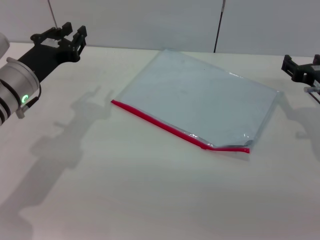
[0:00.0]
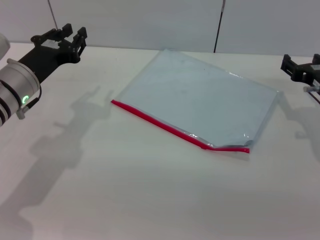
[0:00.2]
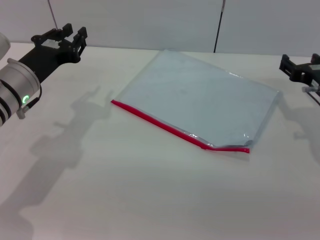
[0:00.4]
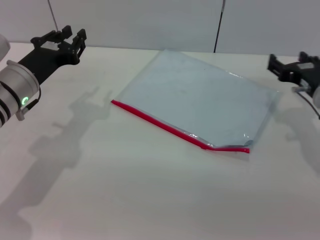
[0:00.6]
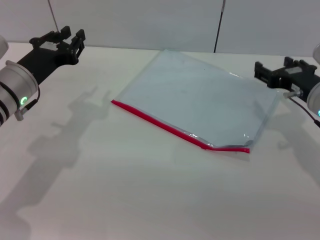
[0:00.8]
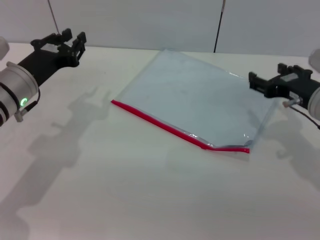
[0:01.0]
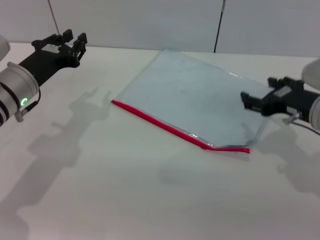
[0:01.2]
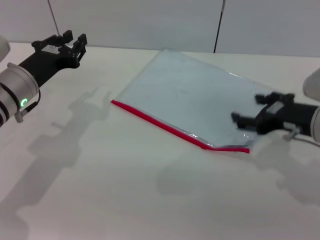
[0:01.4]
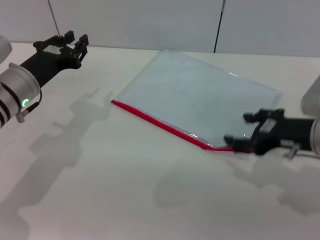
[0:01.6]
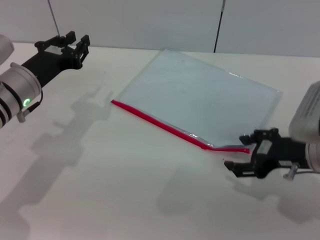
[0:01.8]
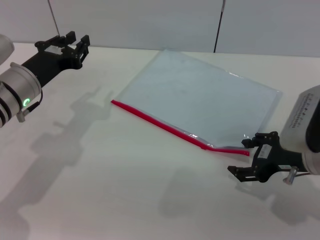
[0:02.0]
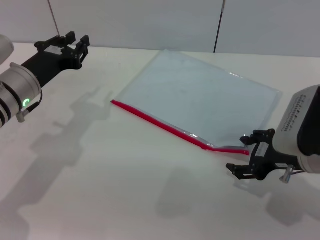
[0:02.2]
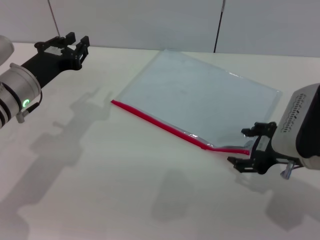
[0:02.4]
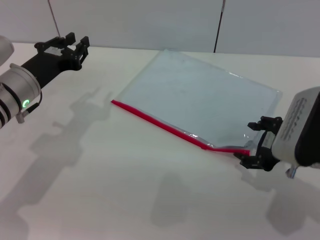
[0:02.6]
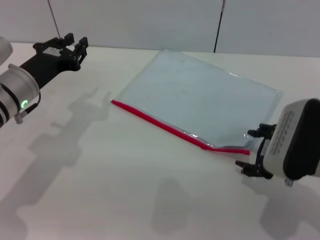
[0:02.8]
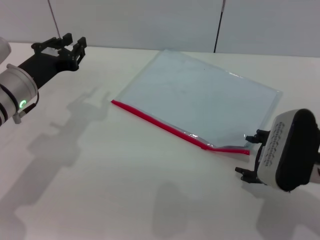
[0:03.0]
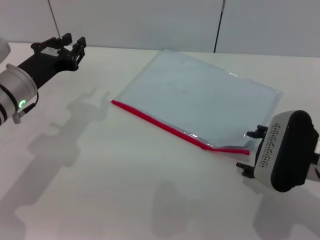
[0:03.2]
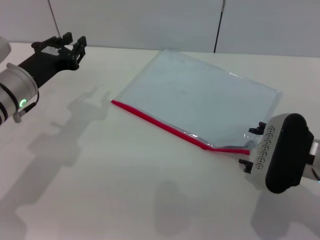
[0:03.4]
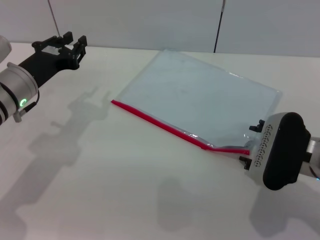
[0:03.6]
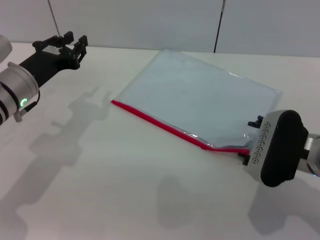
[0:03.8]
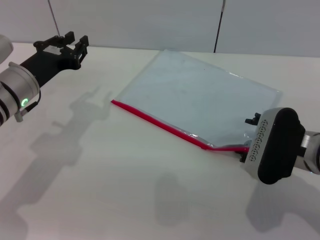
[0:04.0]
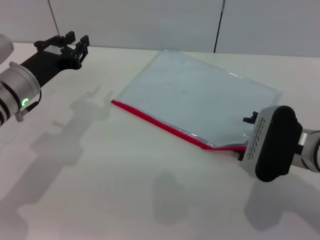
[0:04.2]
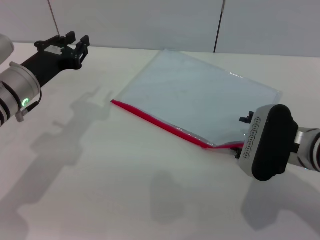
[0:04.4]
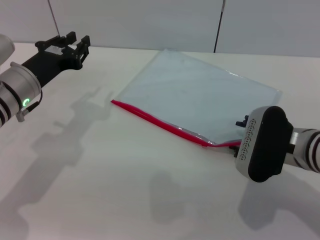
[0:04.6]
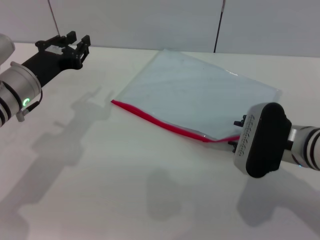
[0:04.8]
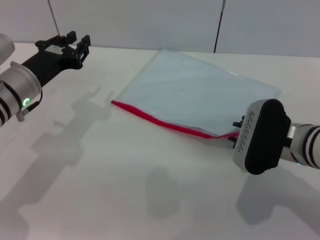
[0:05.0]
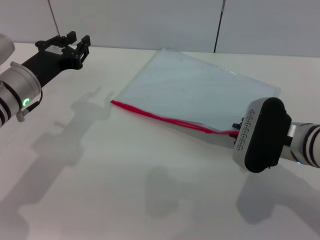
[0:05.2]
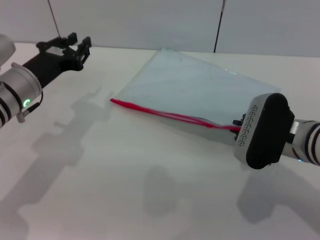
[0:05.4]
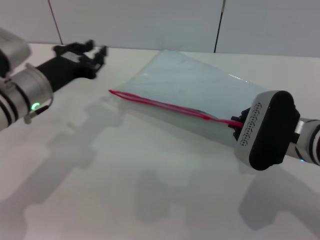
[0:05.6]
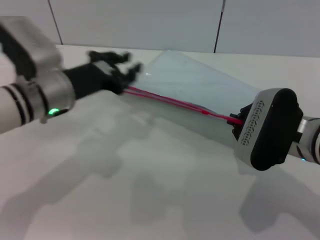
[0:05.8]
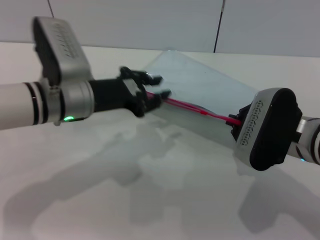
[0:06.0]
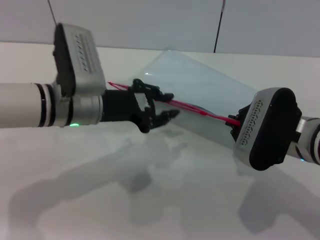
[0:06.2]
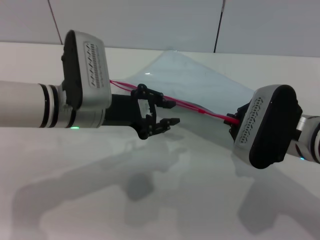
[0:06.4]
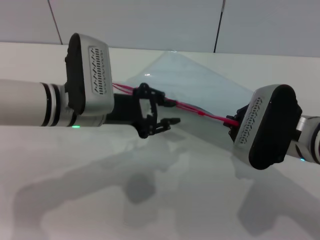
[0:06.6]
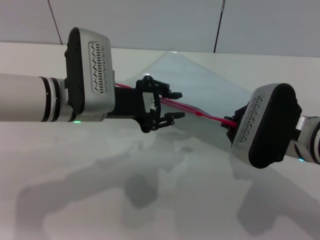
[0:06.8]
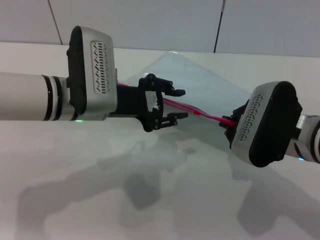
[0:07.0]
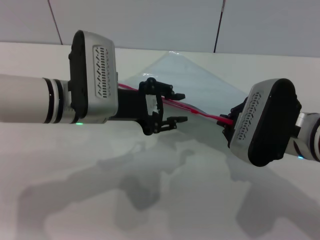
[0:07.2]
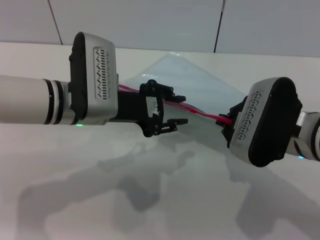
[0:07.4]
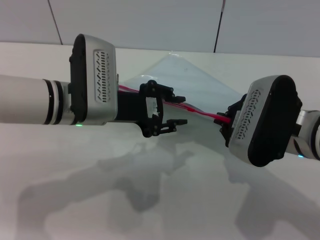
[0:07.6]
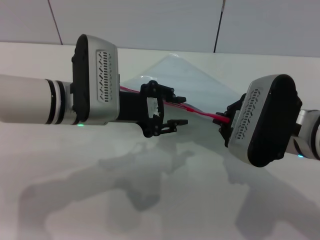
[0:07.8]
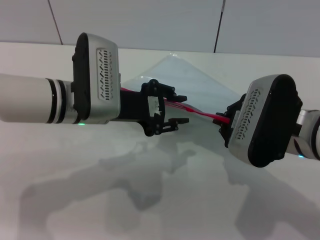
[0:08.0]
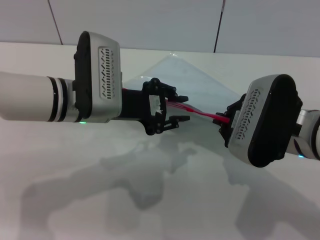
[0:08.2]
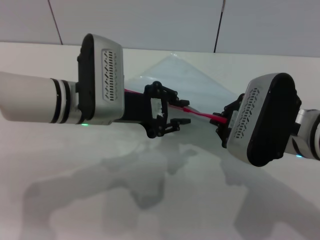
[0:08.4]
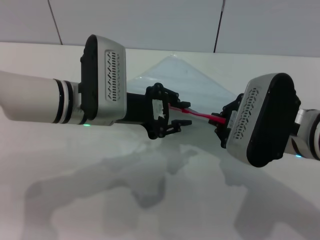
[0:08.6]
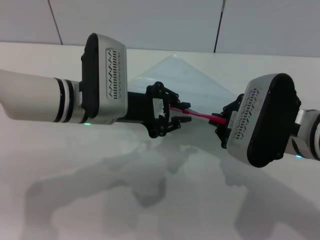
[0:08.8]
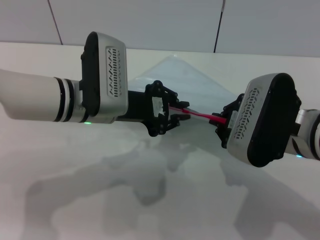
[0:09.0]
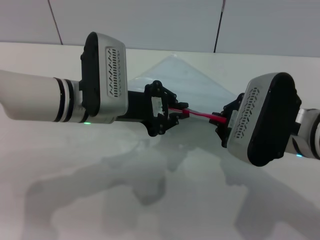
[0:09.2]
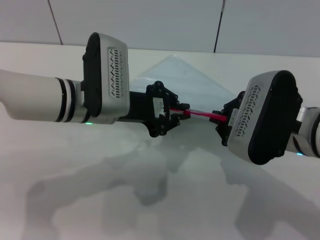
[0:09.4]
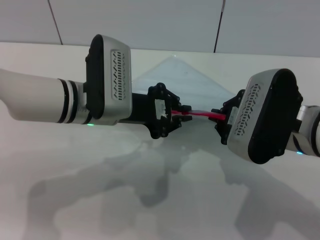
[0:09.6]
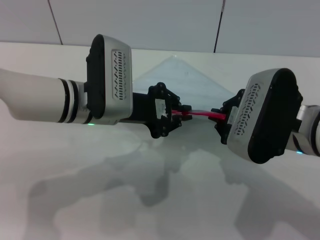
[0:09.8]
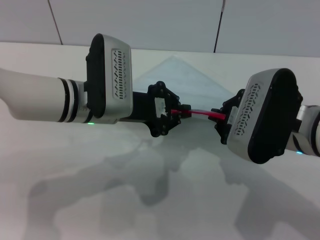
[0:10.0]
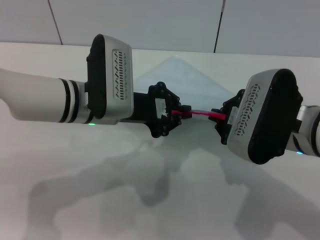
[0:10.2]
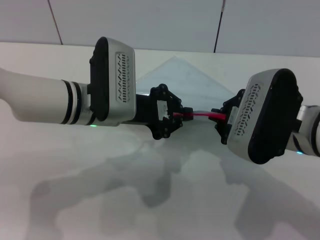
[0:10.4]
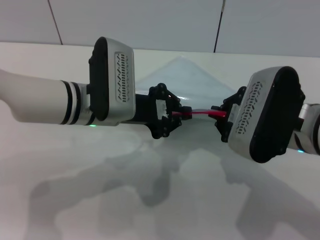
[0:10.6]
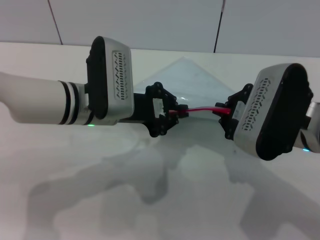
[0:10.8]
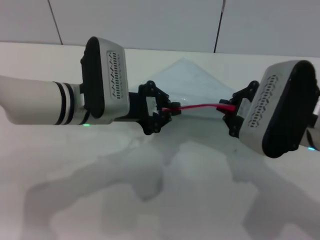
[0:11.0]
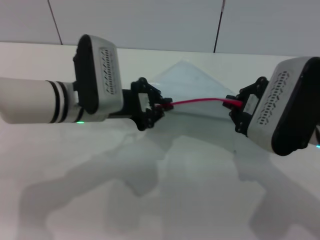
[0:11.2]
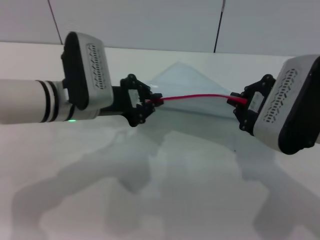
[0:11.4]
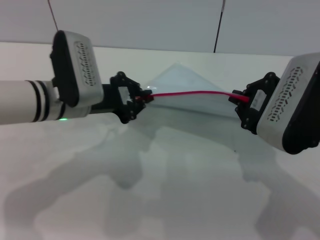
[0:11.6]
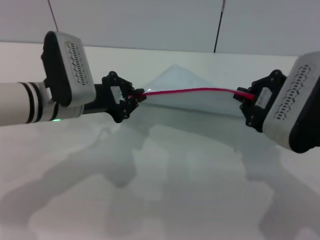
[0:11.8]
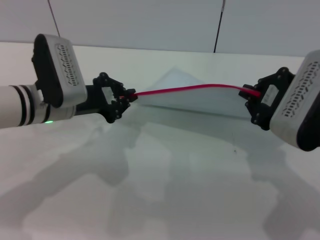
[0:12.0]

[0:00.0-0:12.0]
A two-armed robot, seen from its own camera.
Step, 0:00.0 to 0:06.0: Pick up the transparent plastic bag with the right gripper.
0:00.0 to 0:01.6: The right gripper goes roughly 5 cm backward.
0:03.0 to 0:04.4: There are only small adjustments of the grippers.
0:04.4 to 0:06.0: The right gripper closes up, while the left gripper goes some 5 cm to the right.
0:07.6 to 0:09.0: The left gripper closes.
0:09.0 to 0:10.4: The left gripper closes.
0:10.4 to 0:12.0: The left gripper heads to the left, covering some 5 cm.

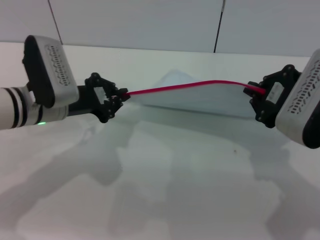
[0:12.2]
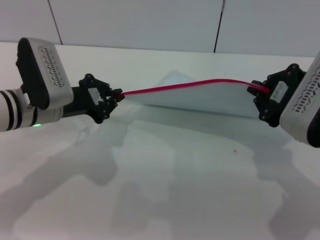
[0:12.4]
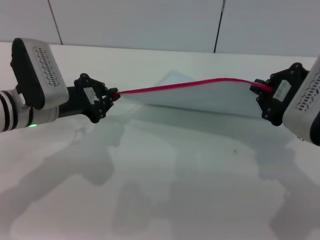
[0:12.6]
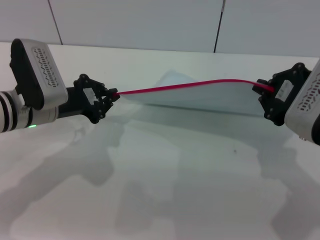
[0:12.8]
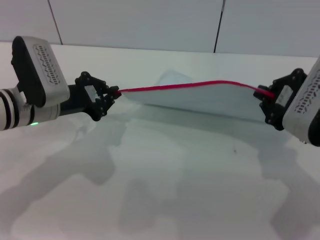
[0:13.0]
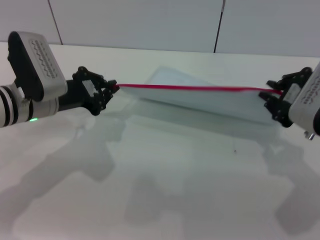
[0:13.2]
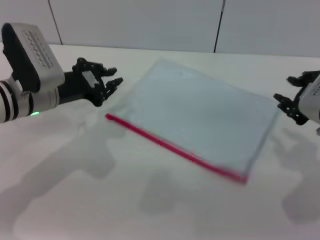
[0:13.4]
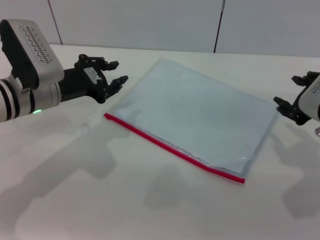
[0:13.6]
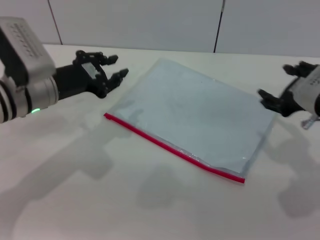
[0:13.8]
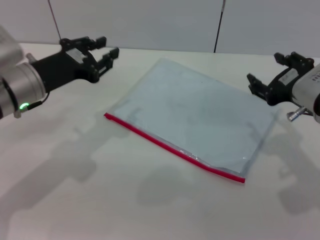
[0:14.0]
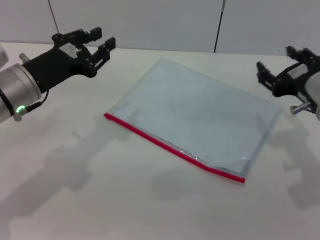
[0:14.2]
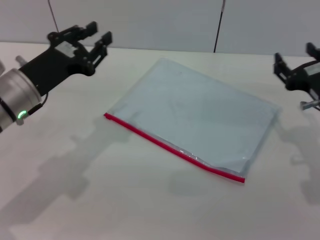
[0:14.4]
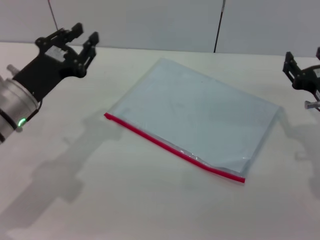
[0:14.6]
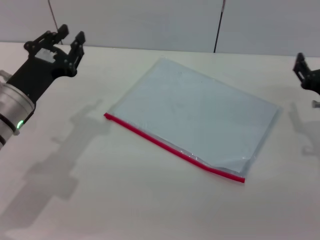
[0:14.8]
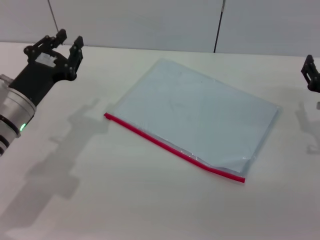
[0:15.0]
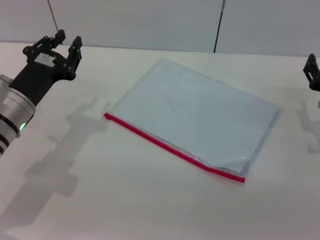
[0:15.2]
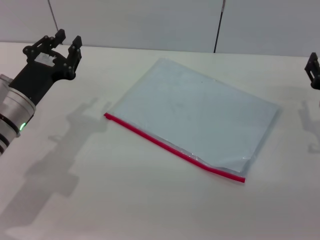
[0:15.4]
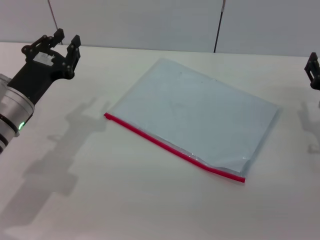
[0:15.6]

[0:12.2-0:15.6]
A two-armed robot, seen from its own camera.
Step, 0:13.4 to 0:14.0: Place the transparent plastic bag.
0:12.2 to 0:13.8: The right gripper opens up, while the left gripper opens its fingers.
0:13.8 to 0:15.6: The right gripper shifts about 10 cm downward. The left gripper shifts by about 5 cm.

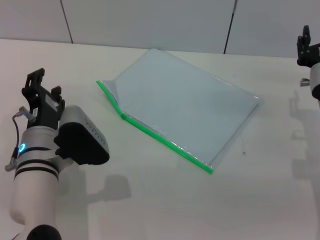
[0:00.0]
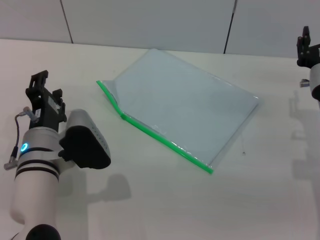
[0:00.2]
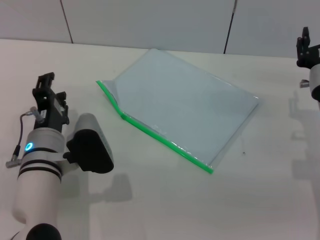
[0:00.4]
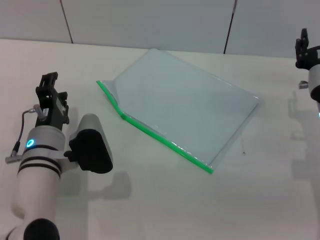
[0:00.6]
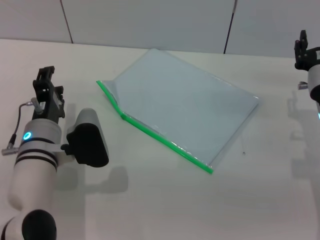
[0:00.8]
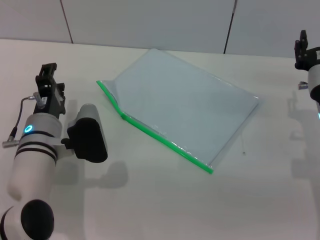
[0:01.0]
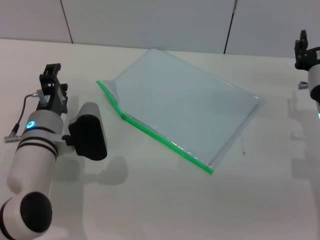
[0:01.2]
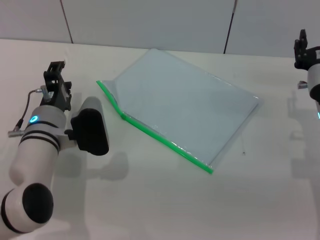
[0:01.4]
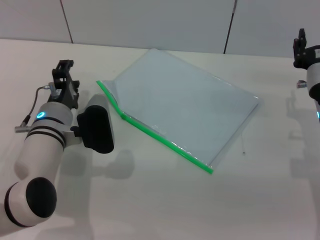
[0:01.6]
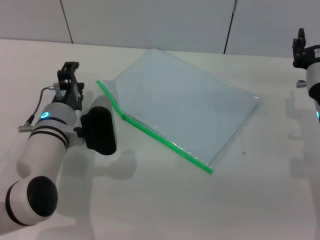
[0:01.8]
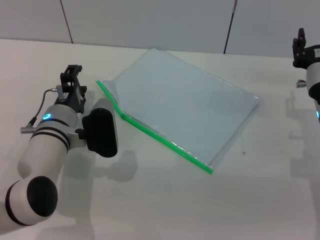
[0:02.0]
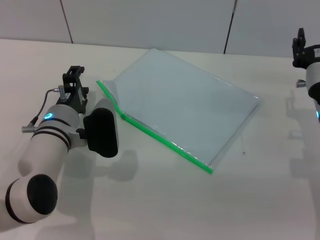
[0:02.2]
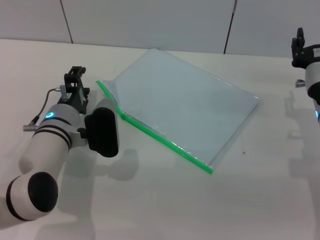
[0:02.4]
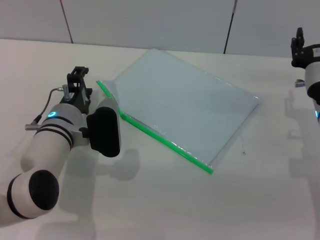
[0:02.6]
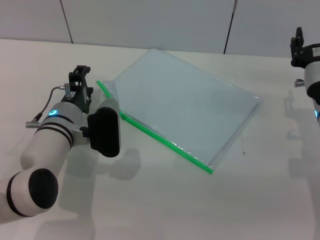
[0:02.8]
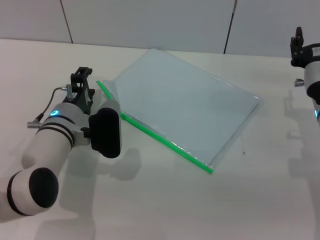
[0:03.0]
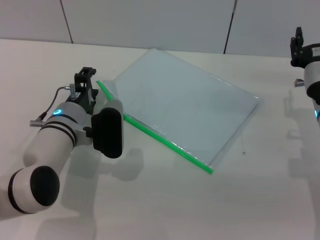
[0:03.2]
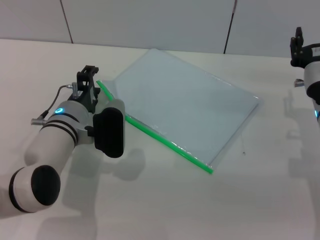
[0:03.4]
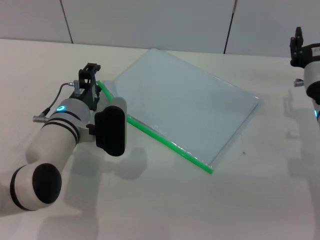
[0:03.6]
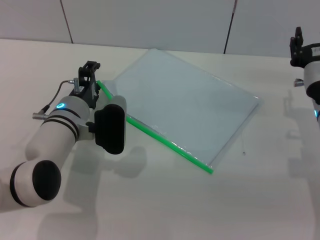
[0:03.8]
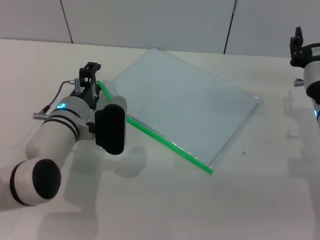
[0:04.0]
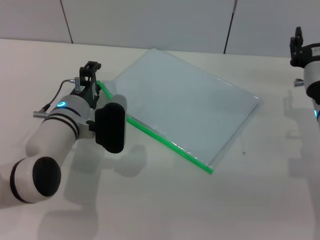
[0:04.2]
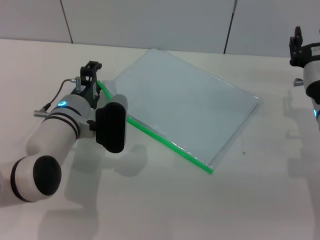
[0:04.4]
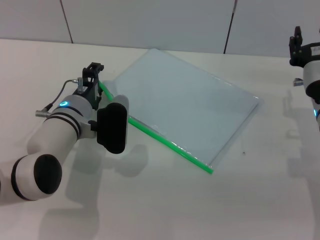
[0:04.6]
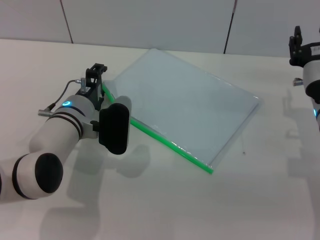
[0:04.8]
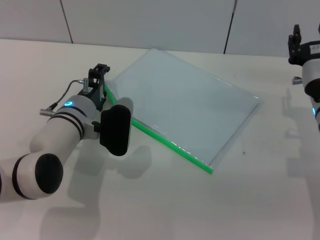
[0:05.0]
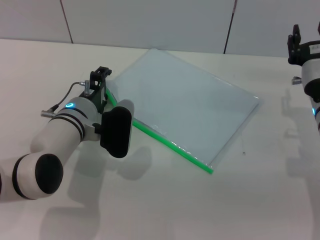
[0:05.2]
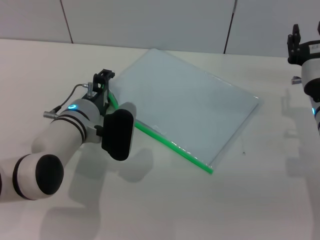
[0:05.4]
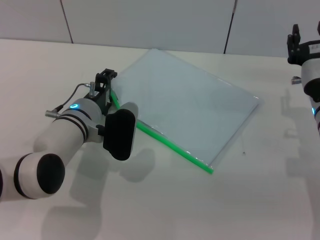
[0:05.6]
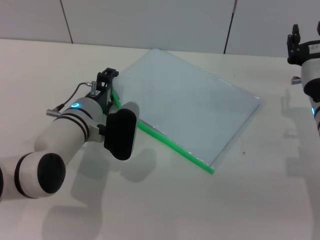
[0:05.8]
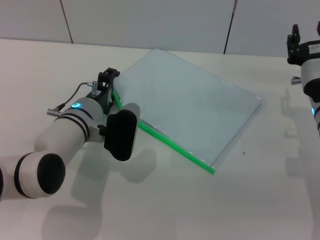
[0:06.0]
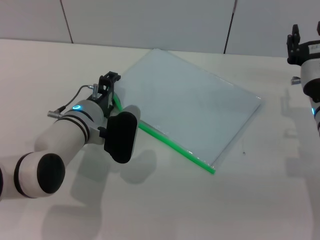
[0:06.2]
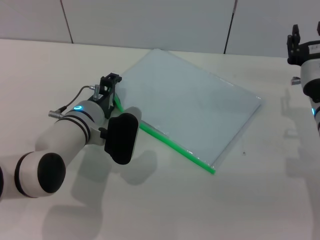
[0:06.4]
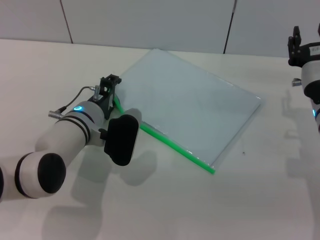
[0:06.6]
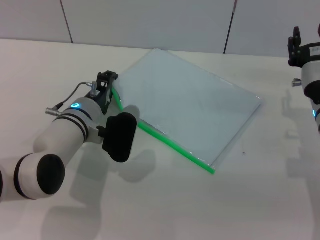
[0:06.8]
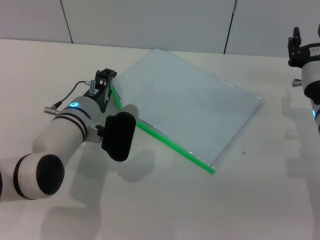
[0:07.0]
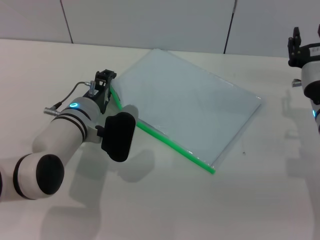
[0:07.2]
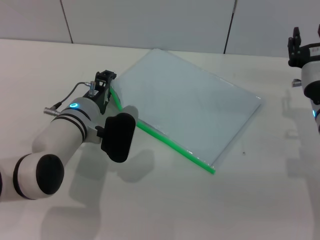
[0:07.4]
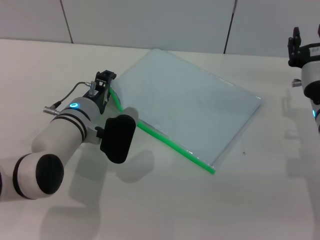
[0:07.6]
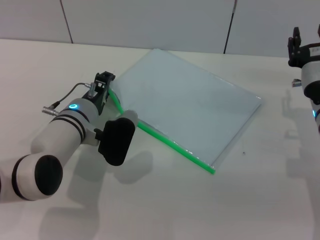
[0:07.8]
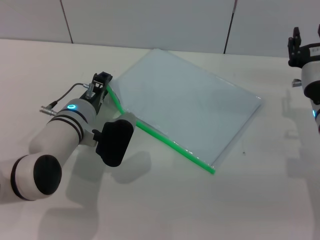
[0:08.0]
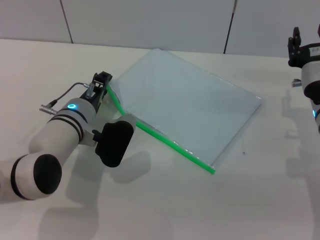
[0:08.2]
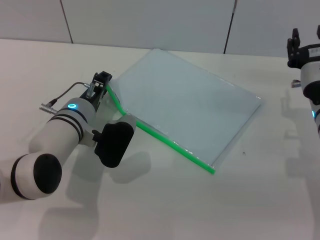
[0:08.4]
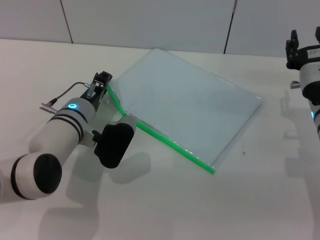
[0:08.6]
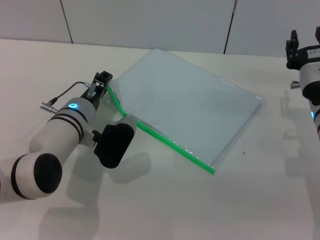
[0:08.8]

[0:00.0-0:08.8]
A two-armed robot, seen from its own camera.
0:00.0 to 0:01.4: The left gripper shifts some 5 cm forward.
0:01.4 to 0:04.4: The grippers move only a little.
0:04.4 to 0:05.8: The grippers stay close to where they were, moving slightly.
0:05.8 to 0:07.4: Neither gripper changes place.
0:07.4 to 0:08.8: There are only small adjustments of the grippers.
